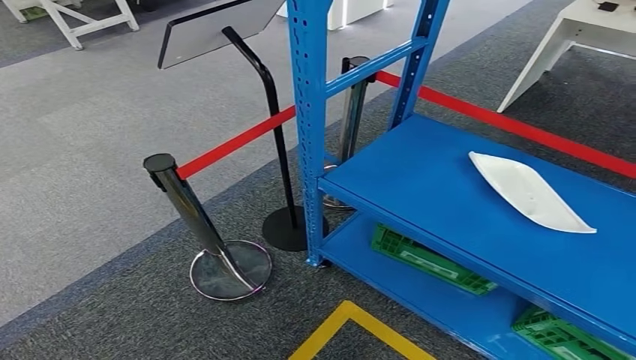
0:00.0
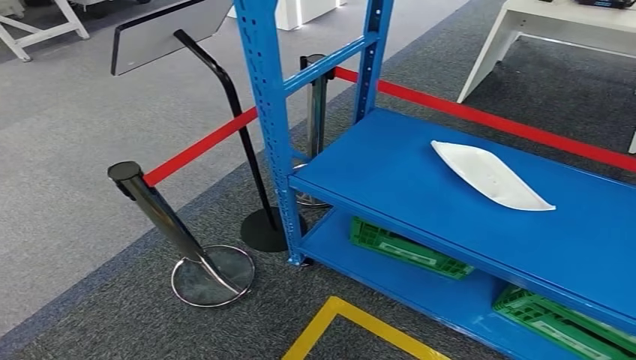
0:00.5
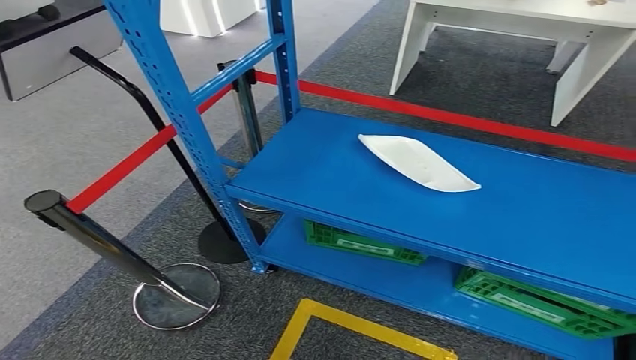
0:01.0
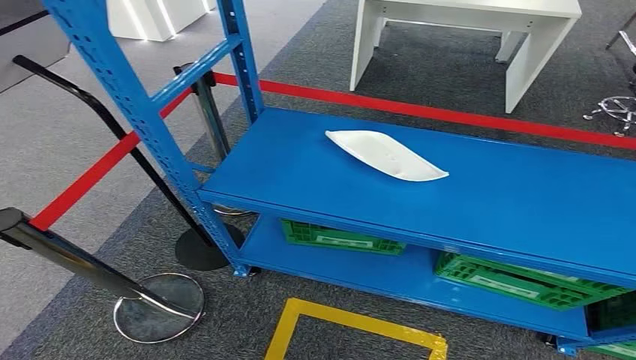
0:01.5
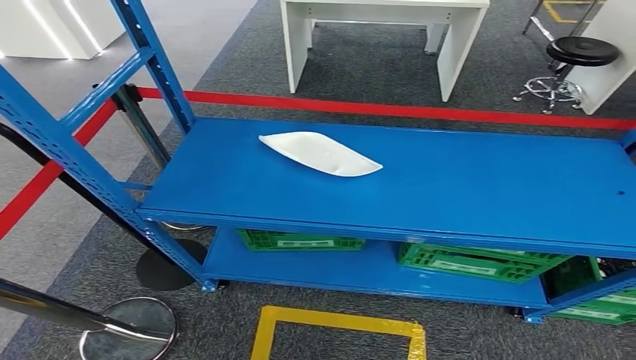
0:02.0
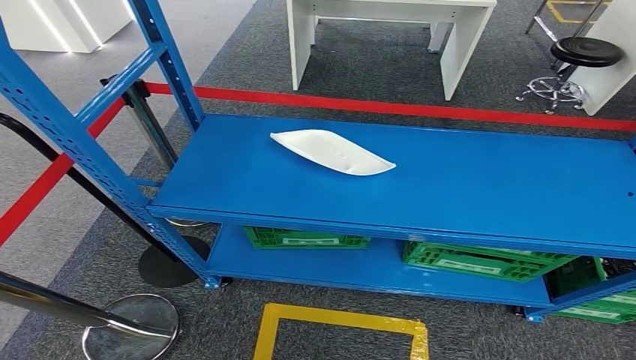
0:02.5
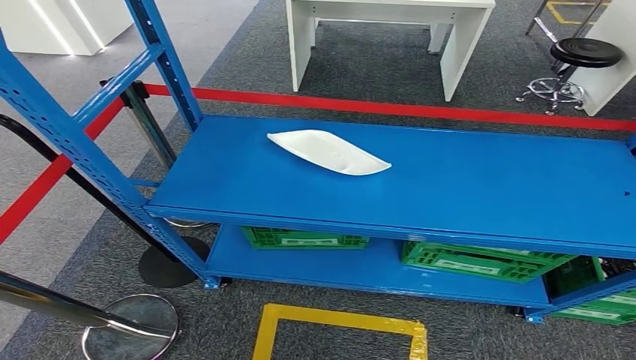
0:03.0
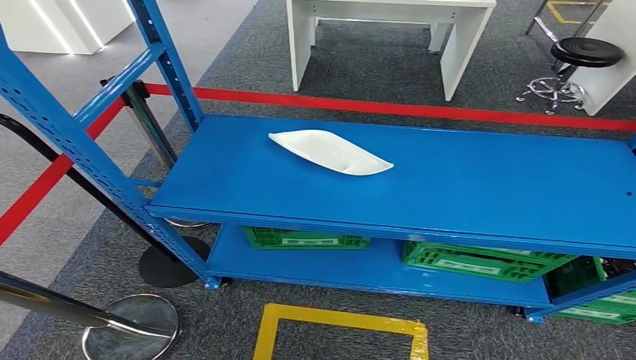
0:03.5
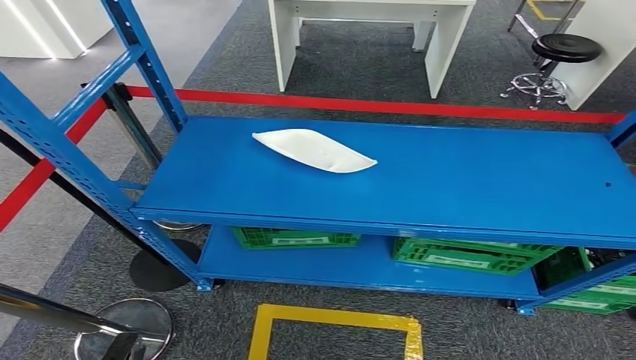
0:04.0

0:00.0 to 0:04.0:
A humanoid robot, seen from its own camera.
Step, 0:00.0 to 0:04.0: Move to the initial position of the workbench.
